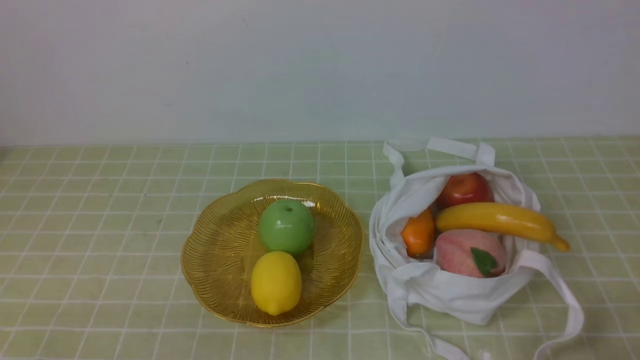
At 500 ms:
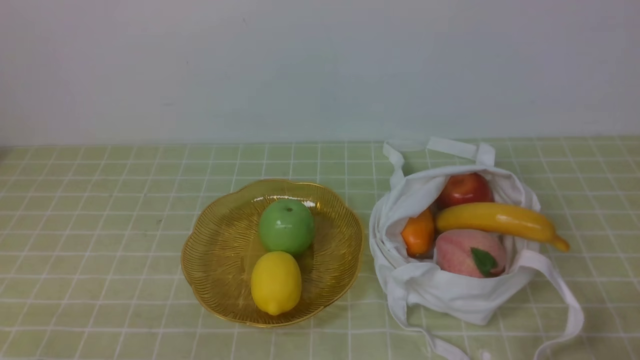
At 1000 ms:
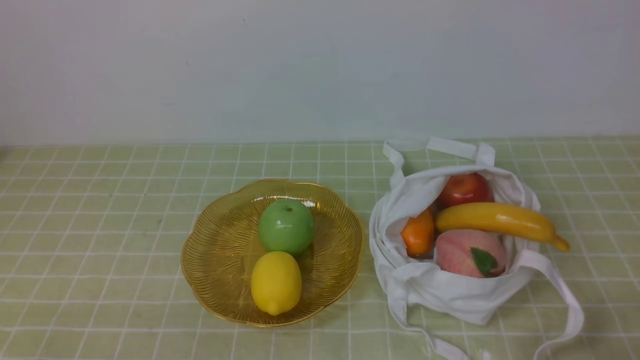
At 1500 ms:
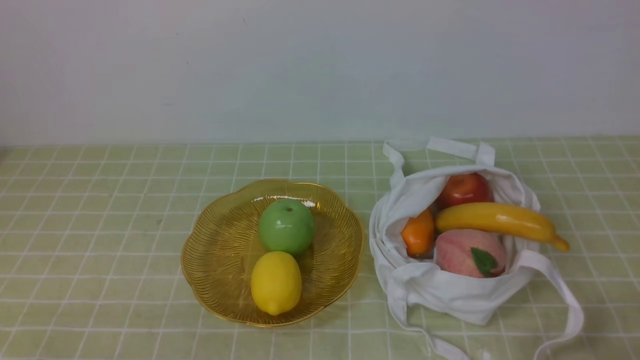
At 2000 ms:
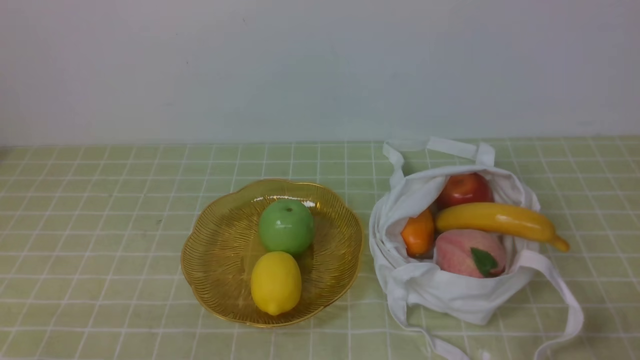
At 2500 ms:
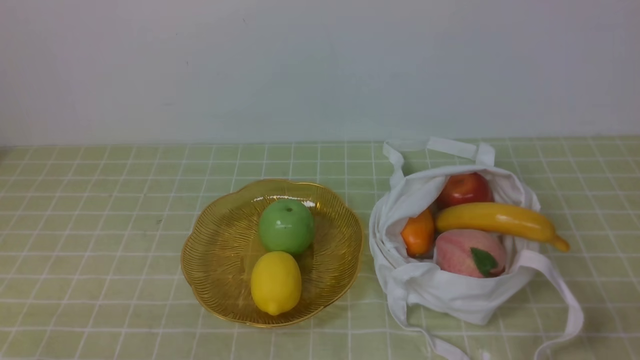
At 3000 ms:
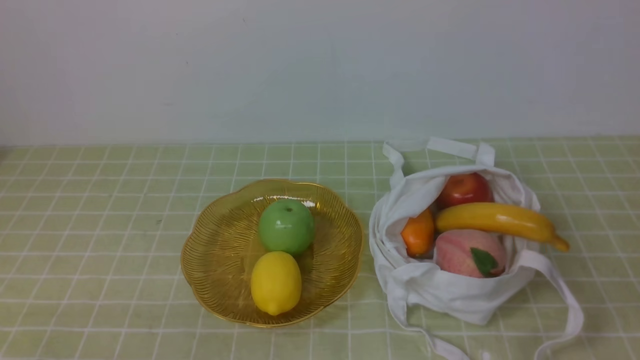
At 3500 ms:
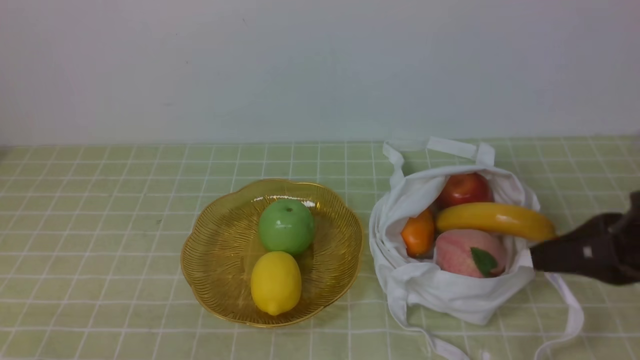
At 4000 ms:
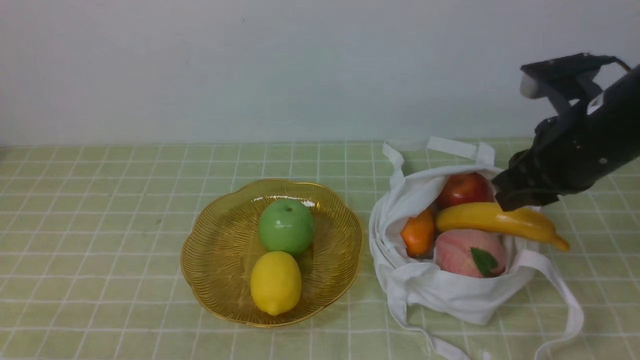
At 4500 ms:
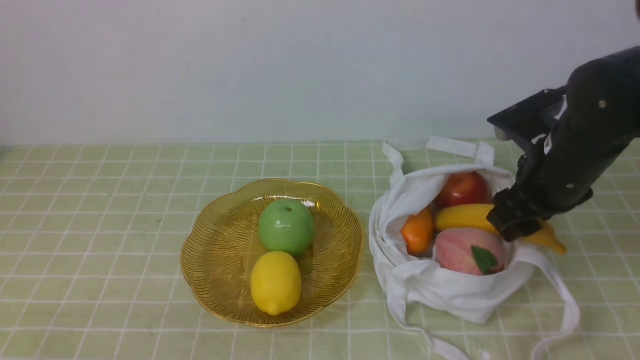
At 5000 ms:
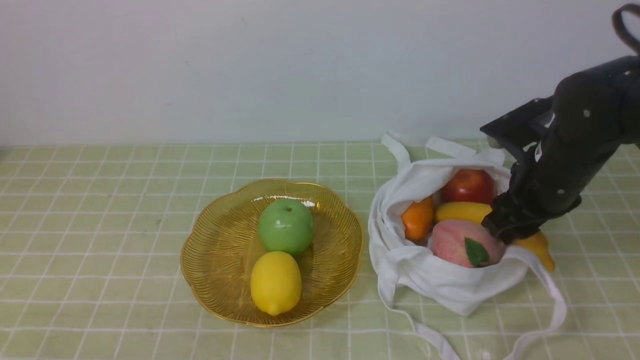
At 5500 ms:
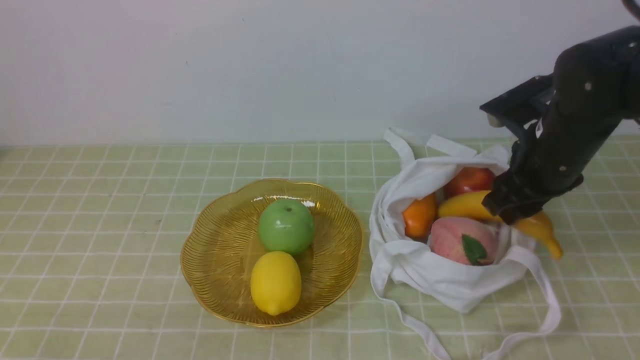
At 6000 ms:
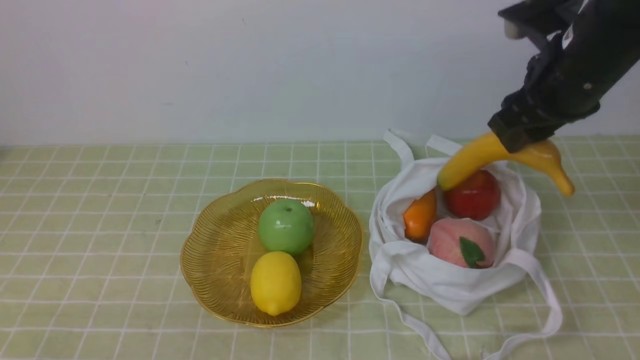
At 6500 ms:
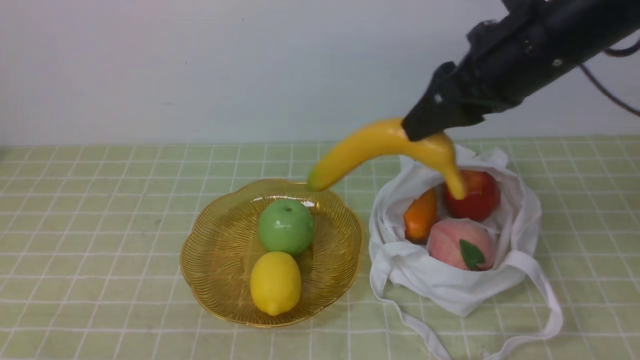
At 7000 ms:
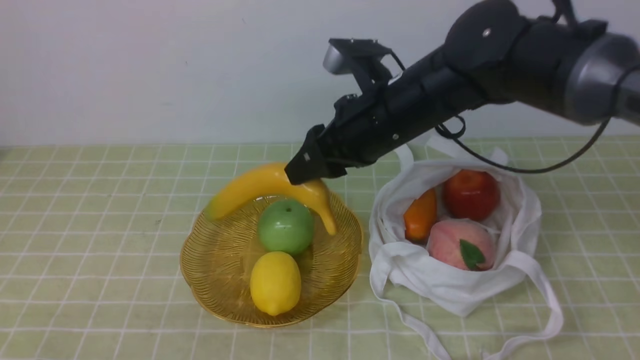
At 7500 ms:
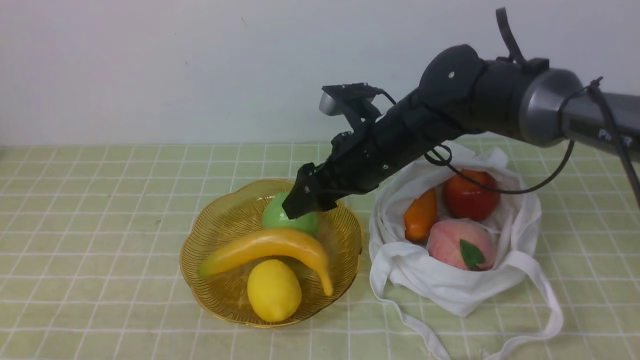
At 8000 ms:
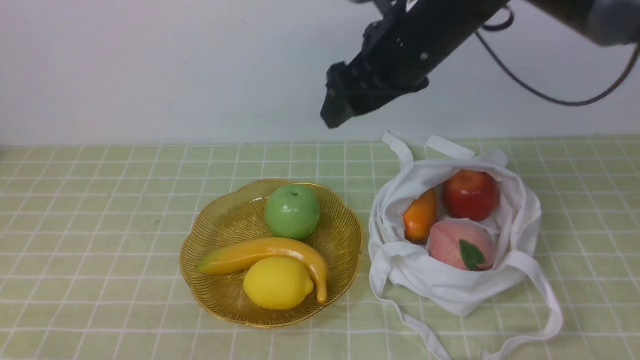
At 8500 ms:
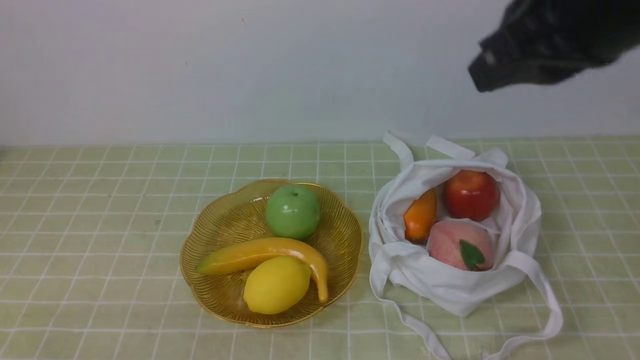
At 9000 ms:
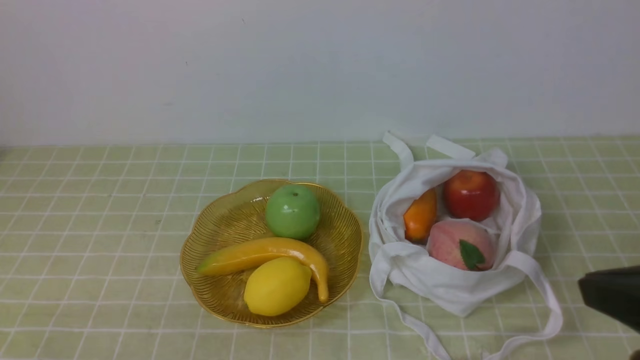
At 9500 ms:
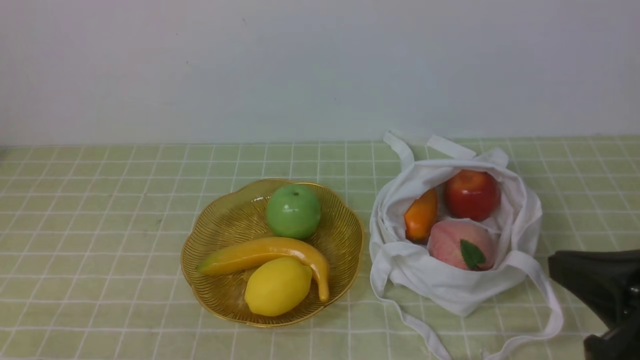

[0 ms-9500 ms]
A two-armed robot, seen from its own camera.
Step, 0 ms to 5500 ms: use the right arm to grab a banana from the bag.
Step, 6000 ms to 7500 ms: use the right arm to put the banana into the empty plate on the right.
2000 ms to 4000 ms: The right gripper travels forward and upward by some 25 cm.
4000 ms to 5500 ms: The right gripper goes roughly 10 cm forward and downward, and opens its fingers.
5500 ms to 7500 ms: The right gripper moves to the left, about 15 cm.
7500 ms to 9500 ms: The right gripper is displaced backward and to the right by about 30 cm, and closes.

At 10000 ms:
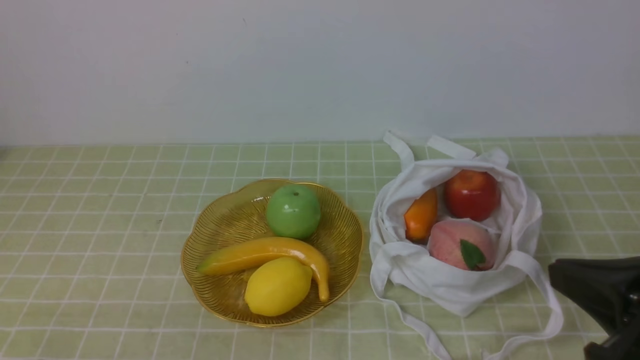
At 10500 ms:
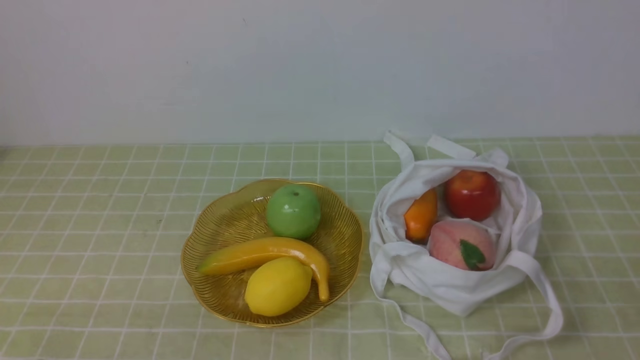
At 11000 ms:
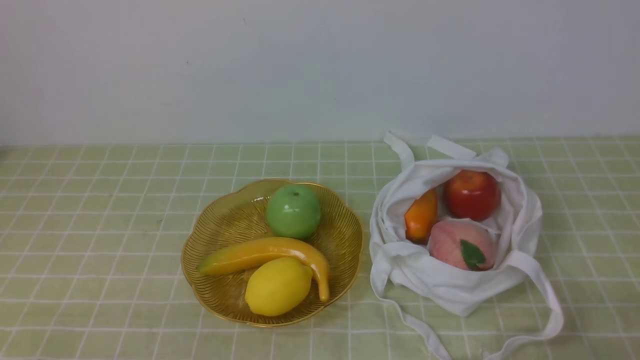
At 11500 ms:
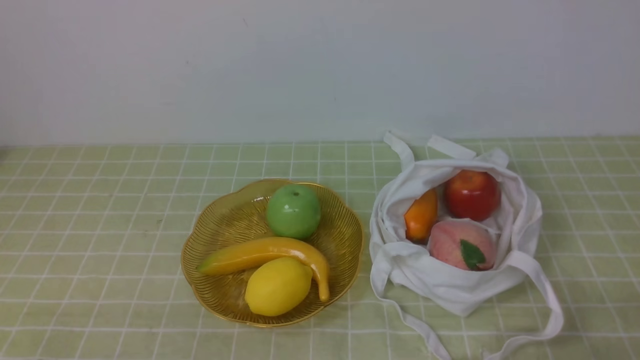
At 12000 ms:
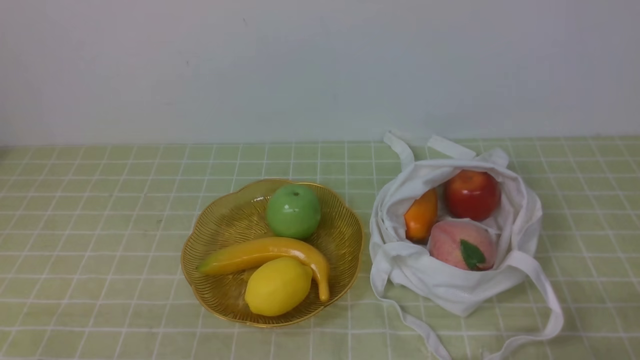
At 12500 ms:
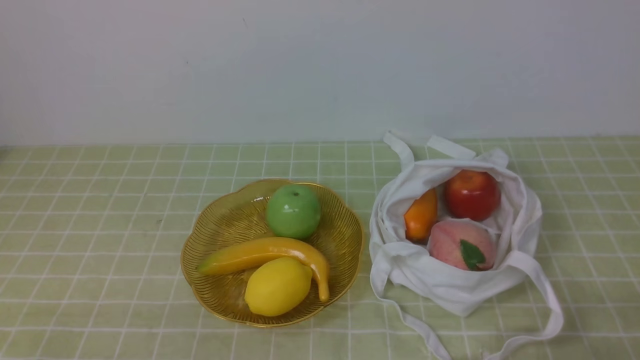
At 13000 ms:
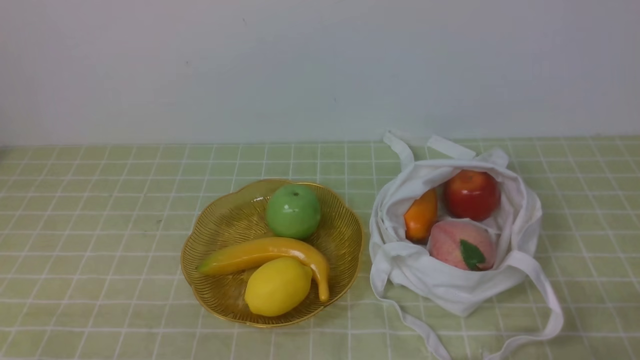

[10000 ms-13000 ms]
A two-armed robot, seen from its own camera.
10000 ms to 11500 ms: The right gripper heads downward, backward and to the right, covering roughly 15 cm.
11500 ms to 13000 ms: The two grippers keep their place.

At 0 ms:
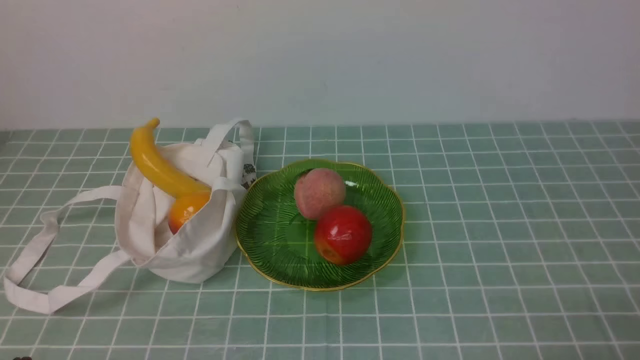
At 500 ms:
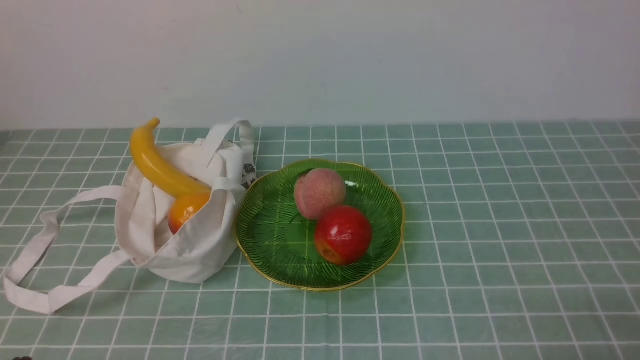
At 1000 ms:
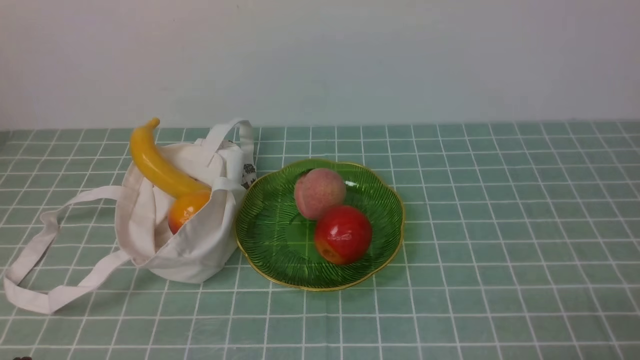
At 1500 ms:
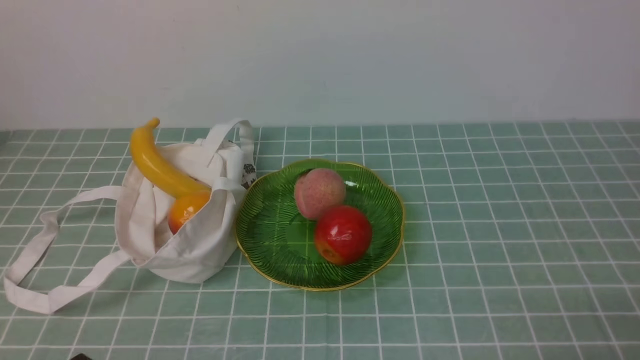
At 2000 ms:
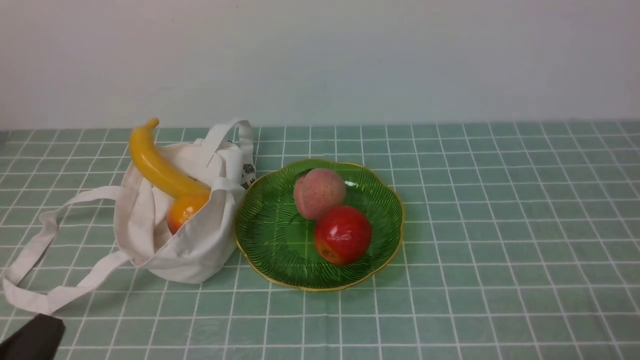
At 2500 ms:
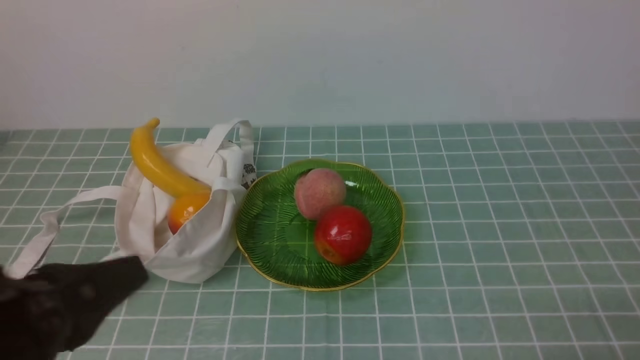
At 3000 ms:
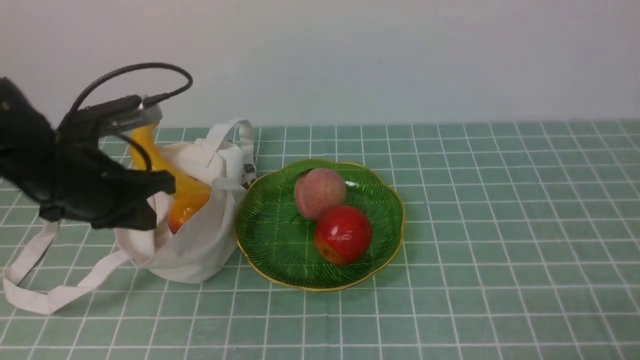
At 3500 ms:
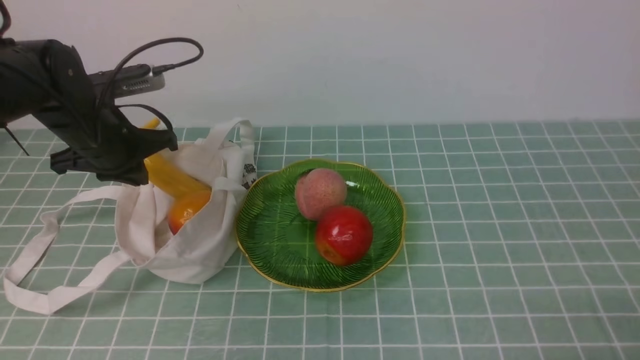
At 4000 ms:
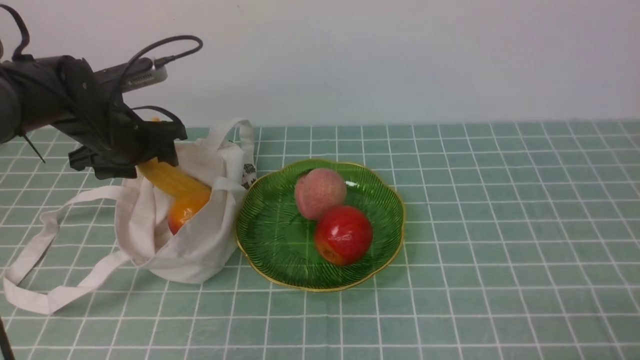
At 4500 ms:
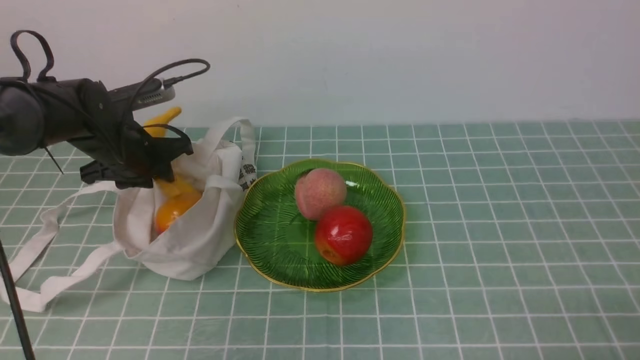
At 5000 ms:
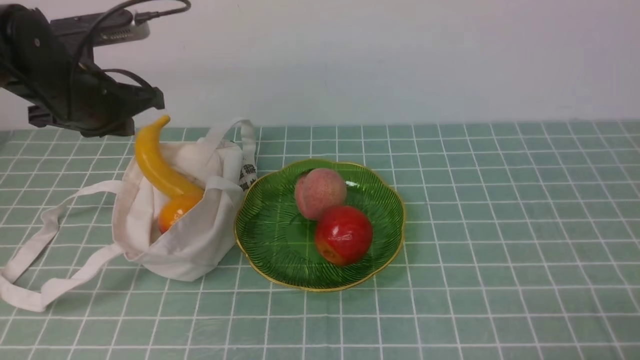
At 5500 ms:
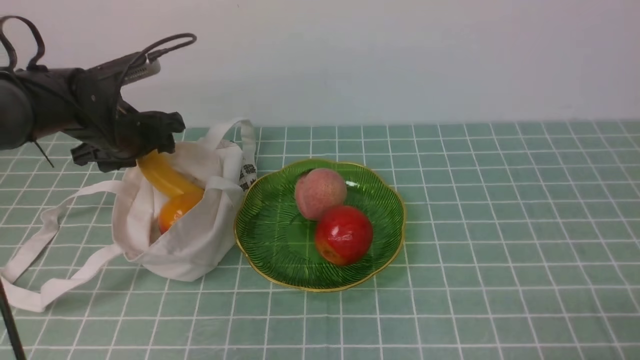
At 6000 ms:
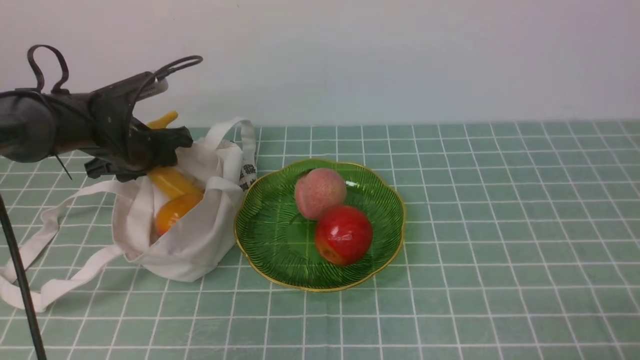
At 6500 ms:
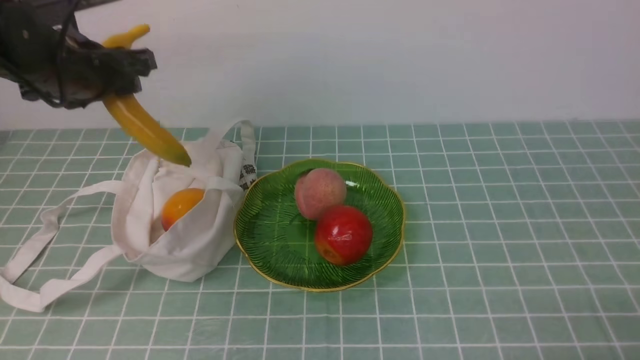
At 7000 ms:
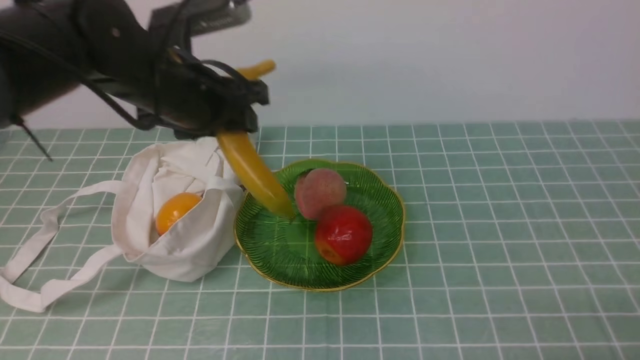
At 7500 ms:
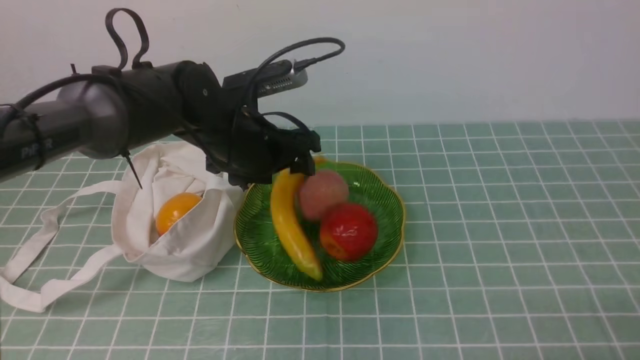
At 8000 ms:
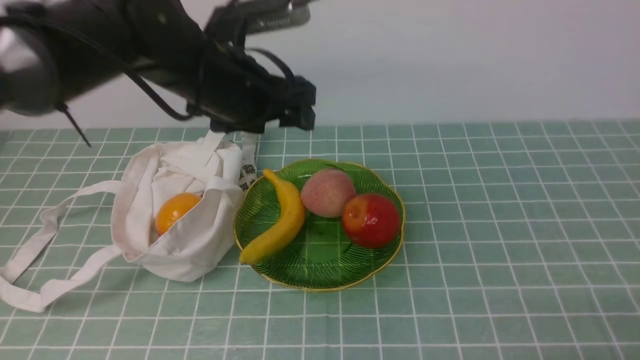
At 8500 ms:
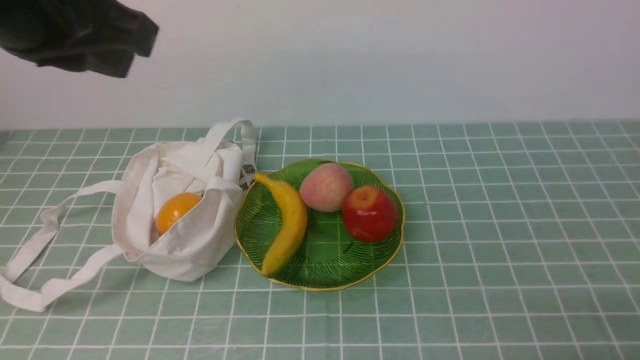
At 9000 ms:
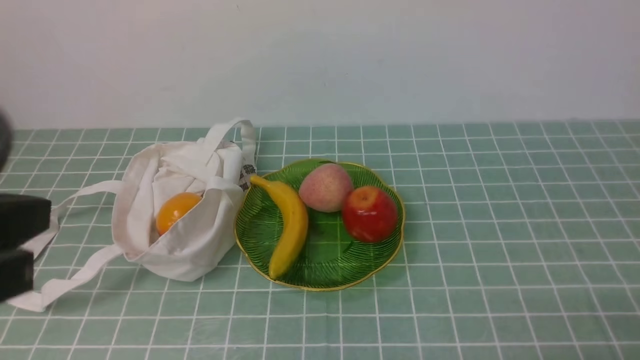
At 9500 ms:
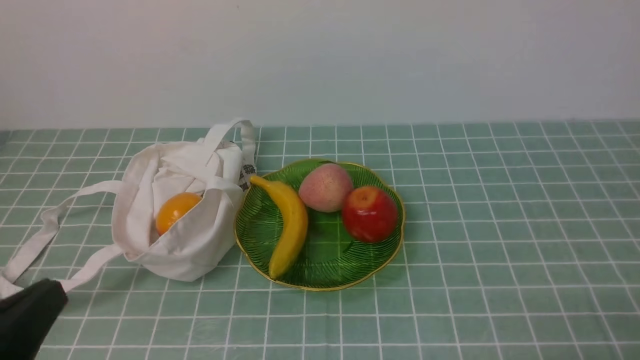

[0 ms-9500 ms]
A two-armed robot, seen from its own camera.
Step, 0 ms to 6000 ms: use the left arm to grab a banana from the bag.
Step, 6500 ms to 7500 ms: use the left arm to put the banana into the empty plate on the right.
2000 ms to 4000 ms: The left gripper goes about 35 cm forward, and opens.
4000 ms to 5500 ms: The left gripper closes, then opens again.
5500 ms to 7500 ms: The left gripper travels to the right by roughly 15 cm.
7500 ms to 9500 ms: The left gripper heads backward and to the left, covering about 35 cm, and closes.
